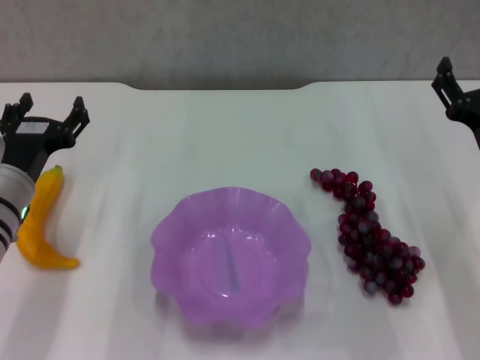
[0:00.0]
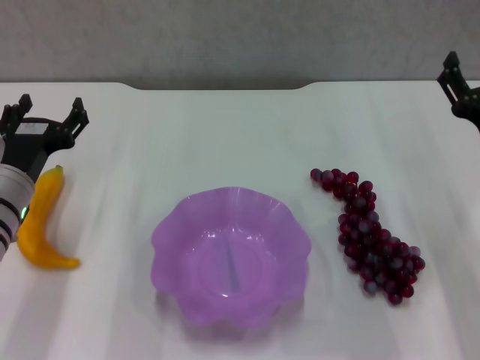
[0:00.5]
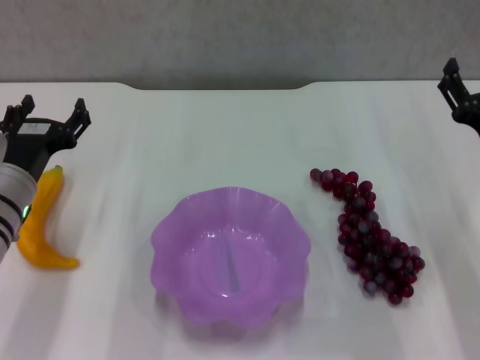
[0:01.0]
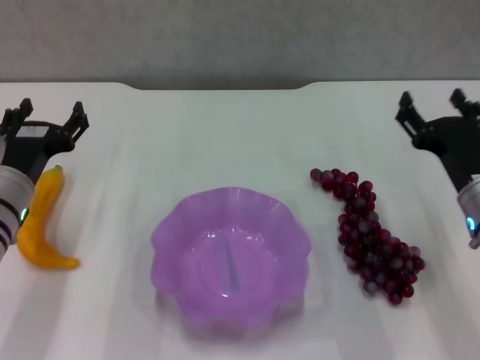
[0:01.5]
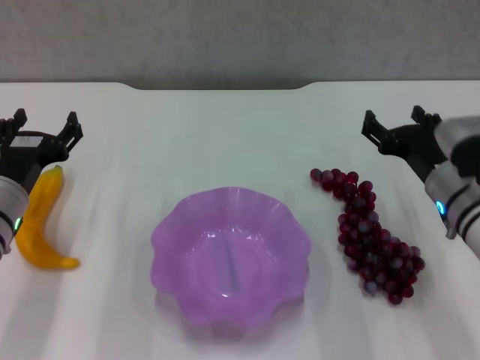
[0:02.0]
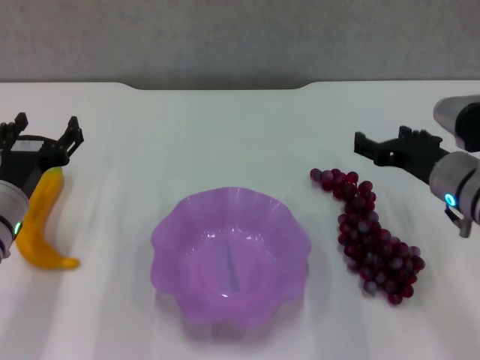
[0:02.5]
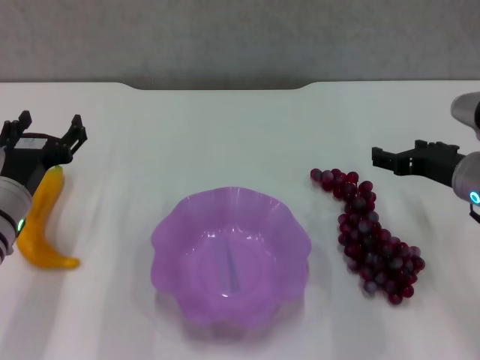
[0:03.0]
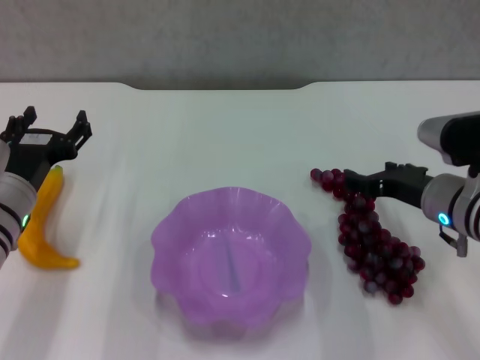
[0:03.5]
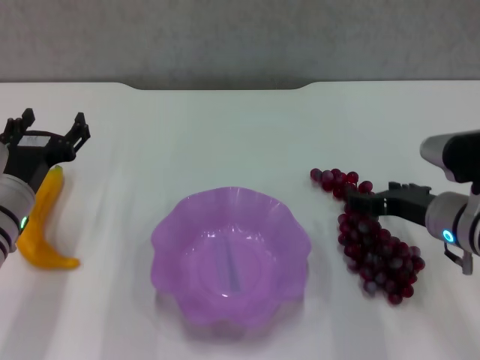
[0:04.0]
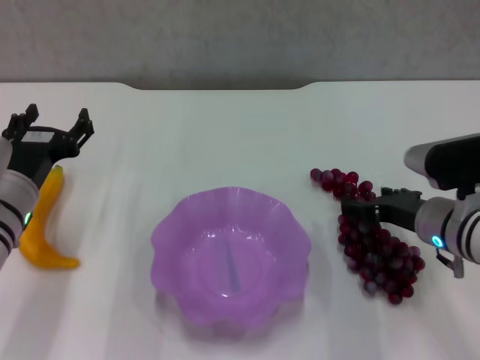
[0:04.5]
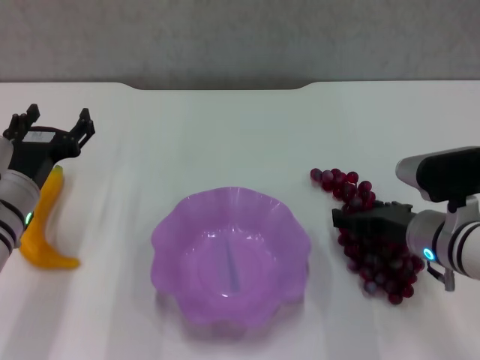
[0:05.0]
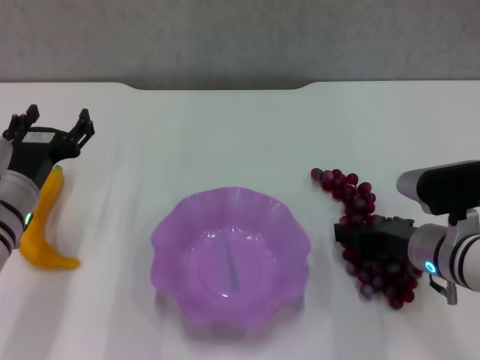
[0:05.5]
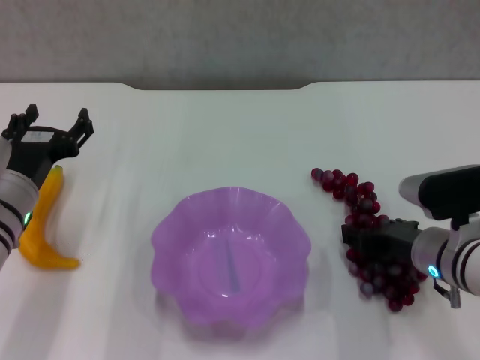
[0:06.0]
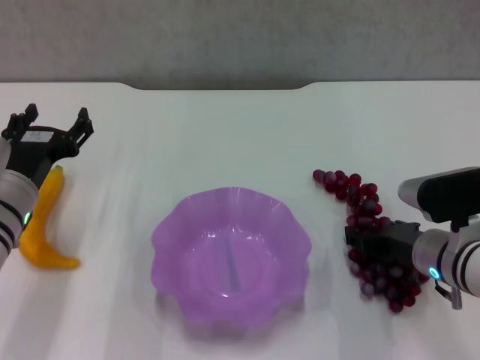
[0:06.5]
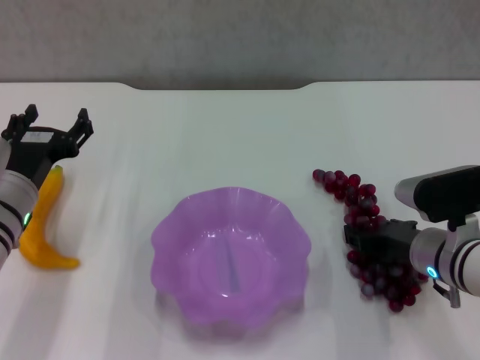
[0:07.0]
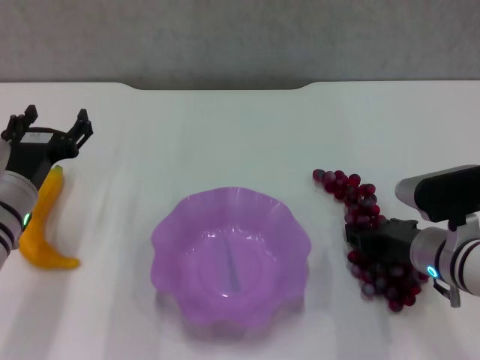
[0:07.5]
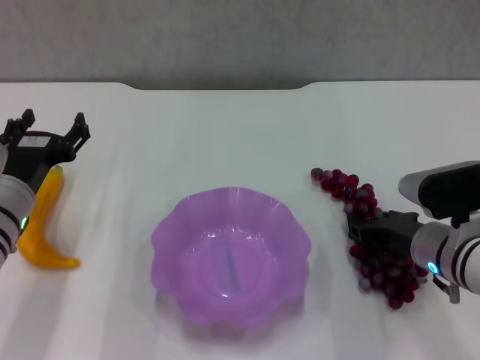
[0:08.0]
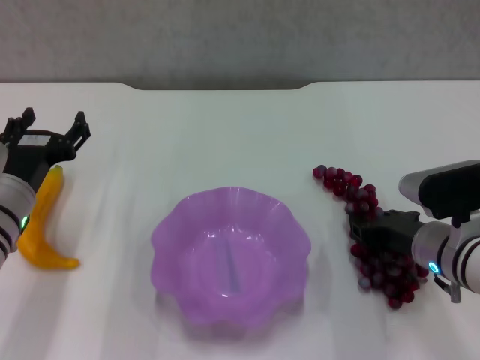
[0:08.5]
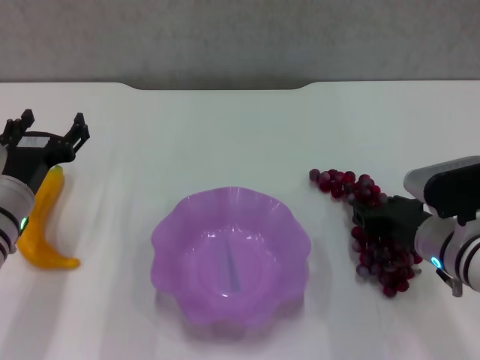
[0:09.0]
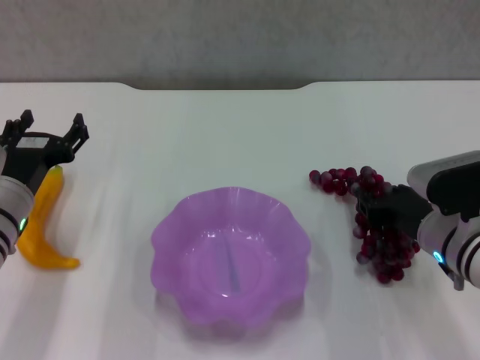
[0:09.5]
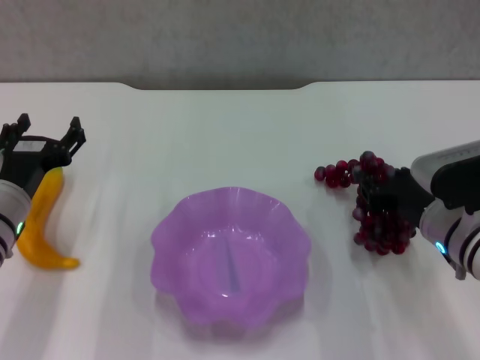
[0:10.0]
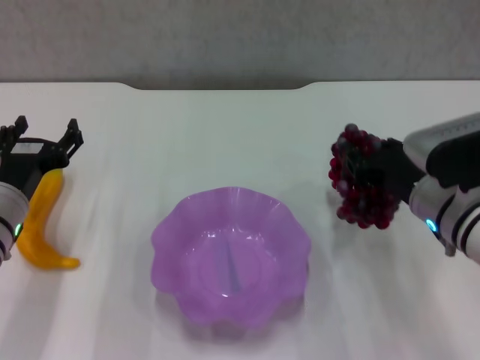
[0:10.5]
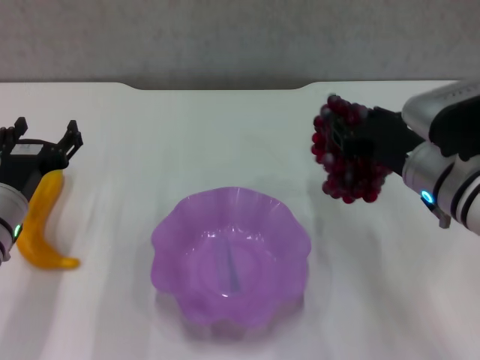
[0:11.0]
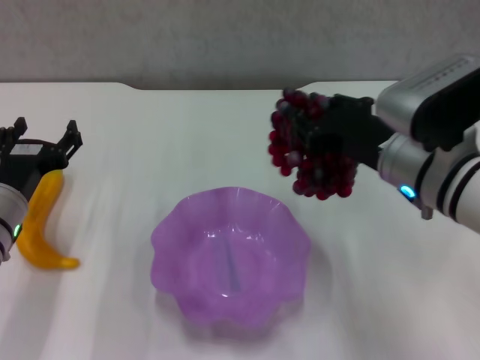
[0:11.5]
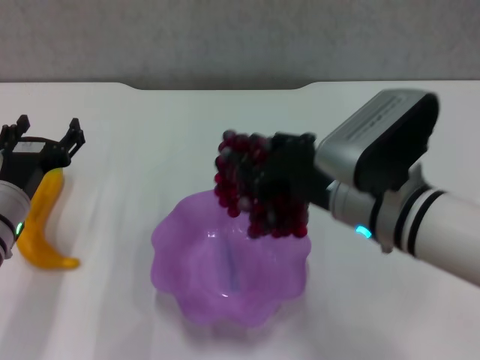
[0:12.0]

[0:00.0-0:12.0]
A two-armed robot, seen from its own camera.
Step, 0:00.0 to 0:08.0: Grasp the grape with right gripper.
0:04.0 to 0:06.0: The grippers make only small movements.
0:06.0 to 0:08.0: The right gripper closes up.
0:08.0 to 0:10.0: The grippers move only a little.
0:10.0 to 0:12.0: The right gripper is displaced to the left and upward by about 15 cm.

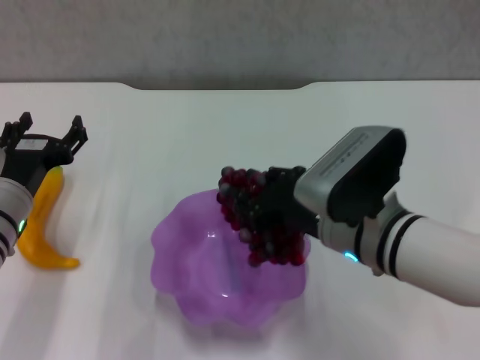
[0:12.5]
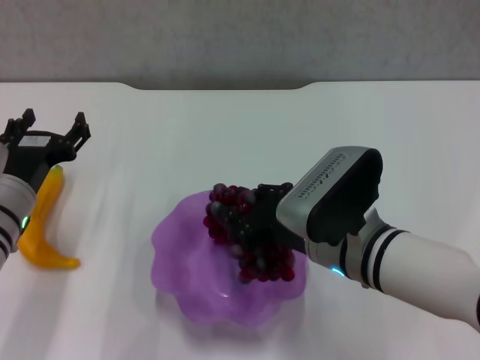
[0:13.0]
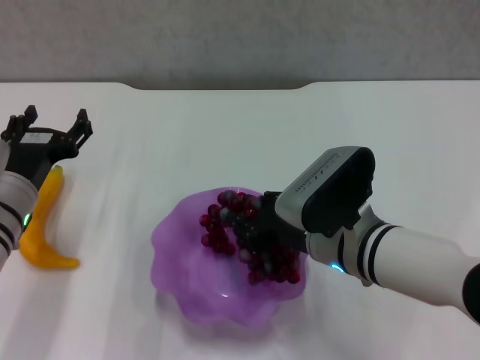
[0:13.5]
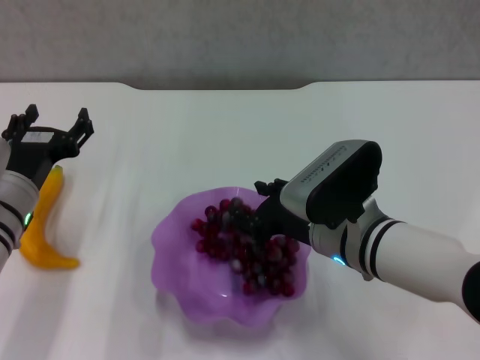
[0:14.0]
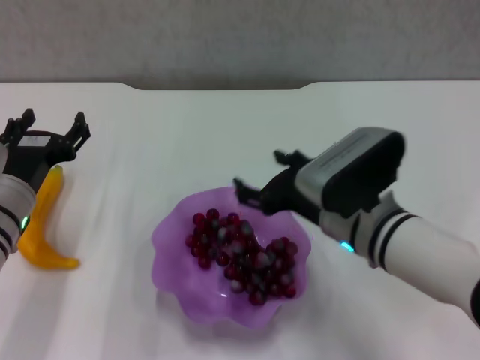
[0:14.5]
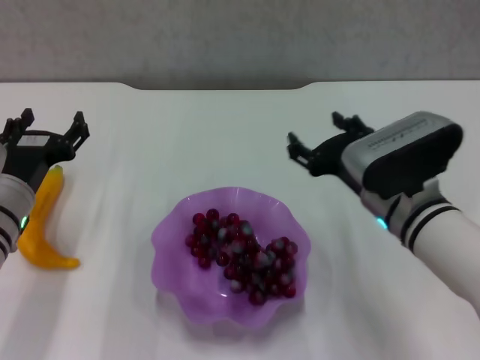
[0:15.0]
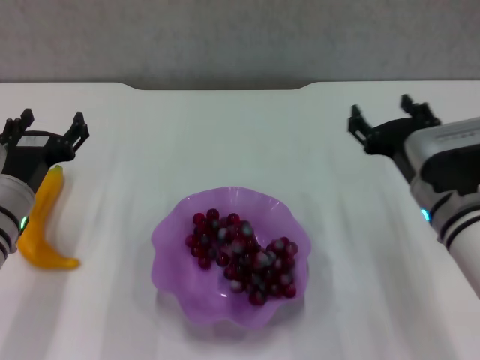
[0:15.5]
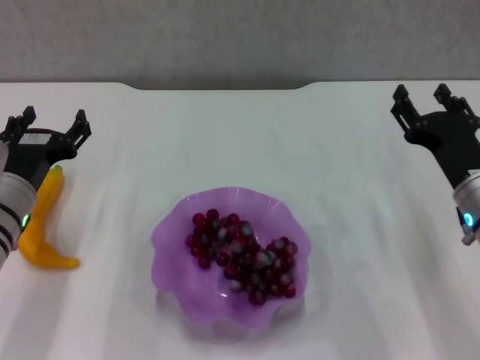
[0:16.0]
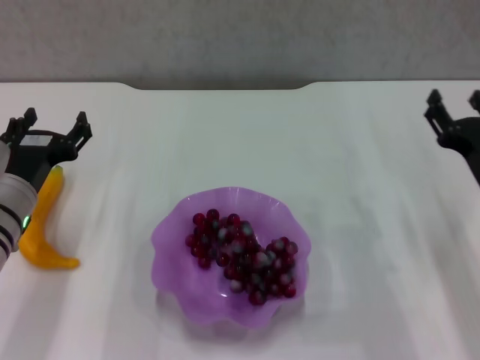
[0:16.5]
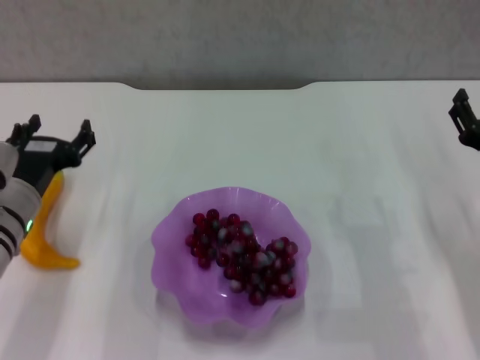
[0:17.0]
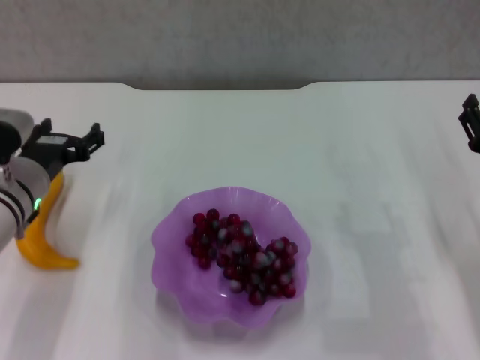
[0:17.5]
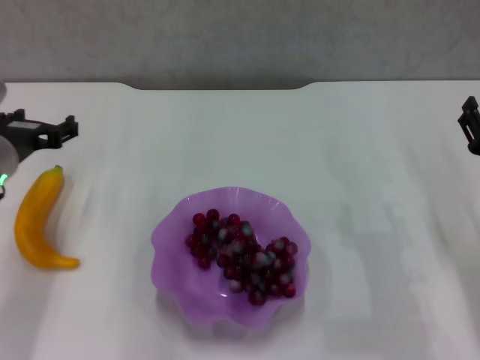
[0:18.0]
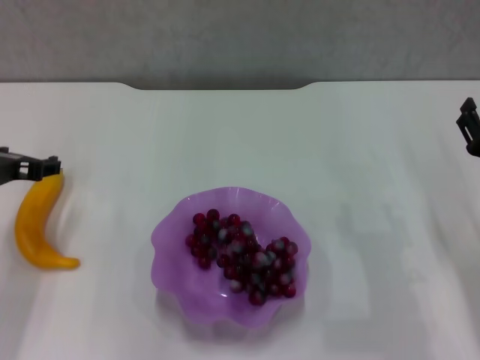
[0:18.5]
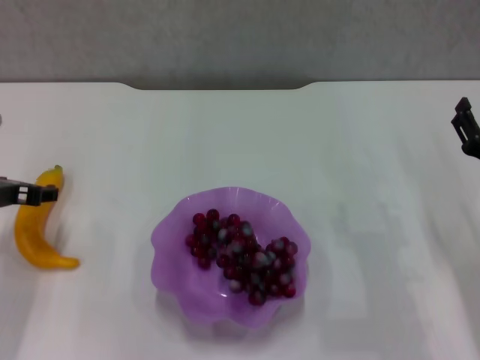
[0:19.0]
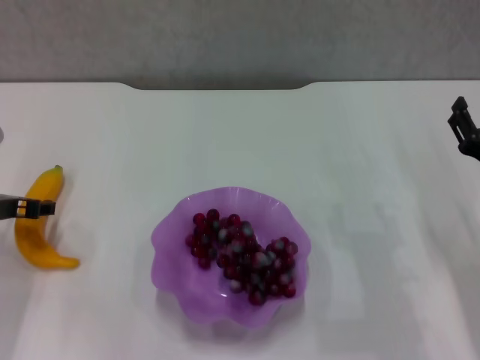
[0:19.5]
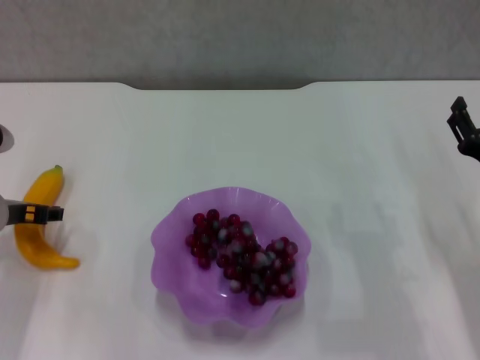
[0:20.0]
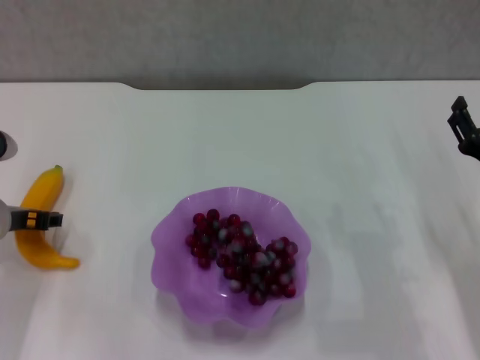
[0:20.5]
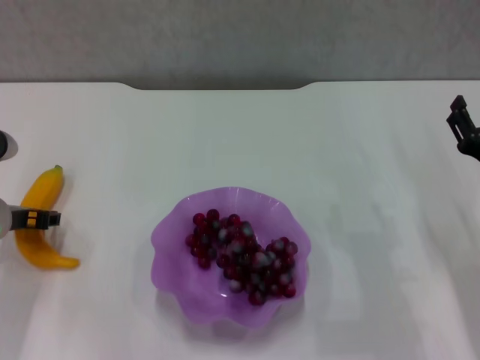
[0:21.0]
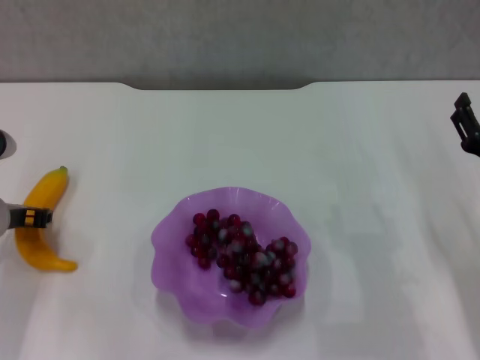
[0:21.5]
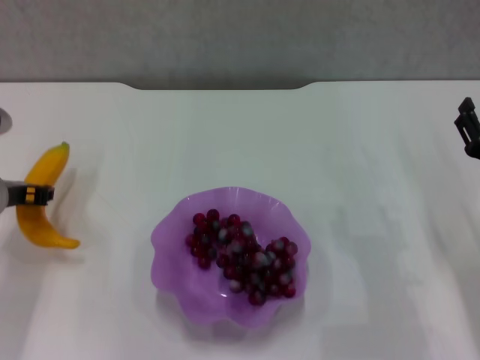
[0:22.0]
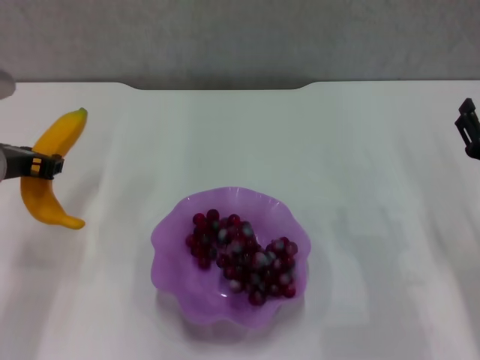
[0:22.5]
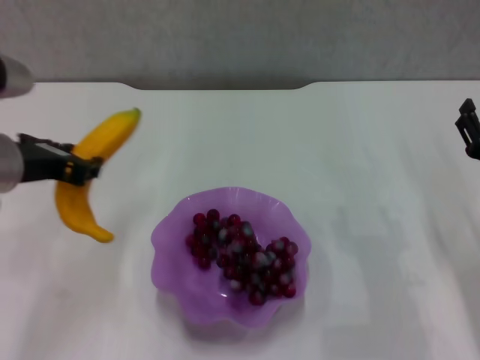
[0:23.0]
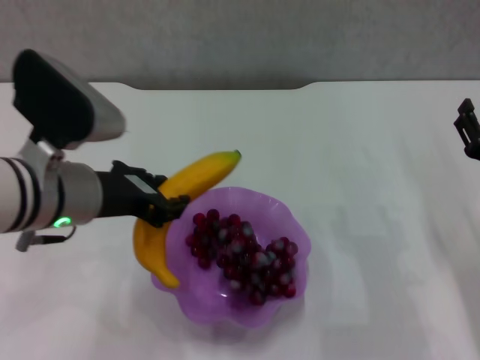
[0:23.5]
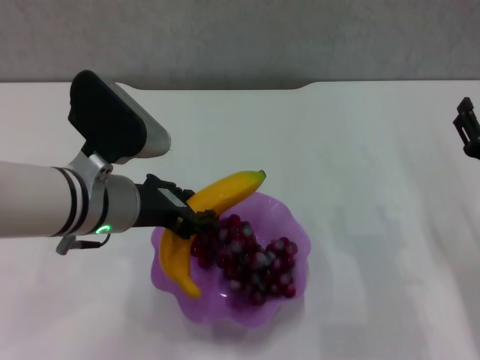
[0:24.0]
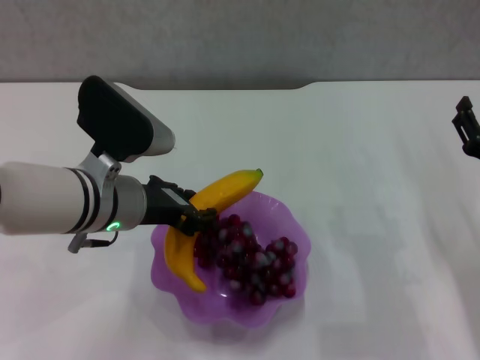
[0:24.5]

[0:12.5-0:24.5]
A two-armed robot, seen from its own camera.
Step, 0:14.5 to 0:21.0: Grasp the banana with left gripper.
0:12.5 to 0:14.5: The right gripper opens.
0:14.5 to 0:16.5: The right gripper is displaced to the right by roughly 15 cm.
0:16.5 to 0:18.5: The left gripper travels upward by some 5 cm.
0:18.5 to 0:20.5: The left gripper travels downward by about 5 cm.
0:20.5 to 0:22.5: The left gripper goes about 10 cm upward, and closes its fingers.
0:22.5 to 0:24.5: The left gripper travels to the right by some 10 cm.

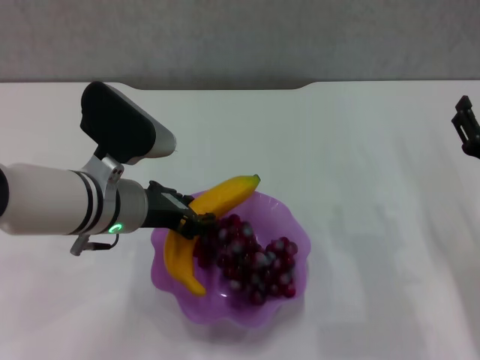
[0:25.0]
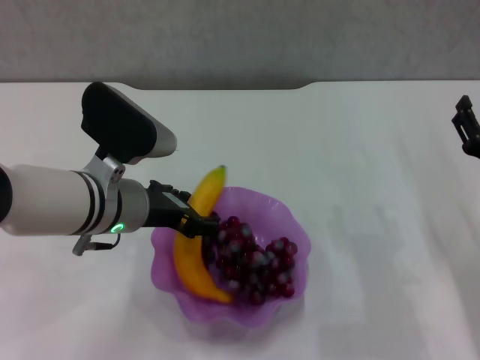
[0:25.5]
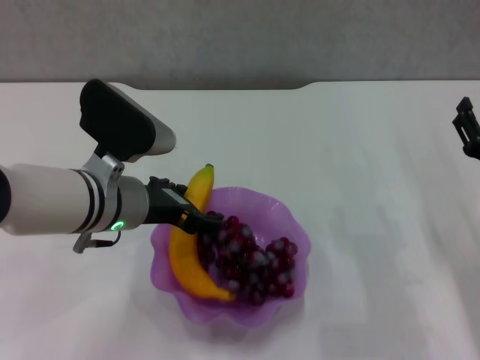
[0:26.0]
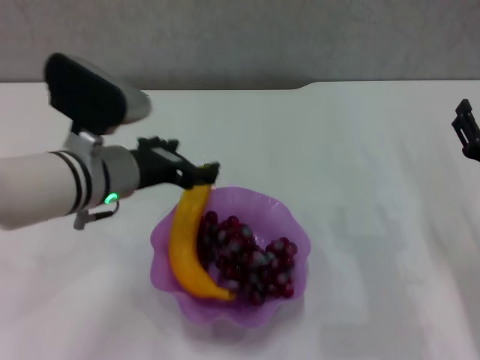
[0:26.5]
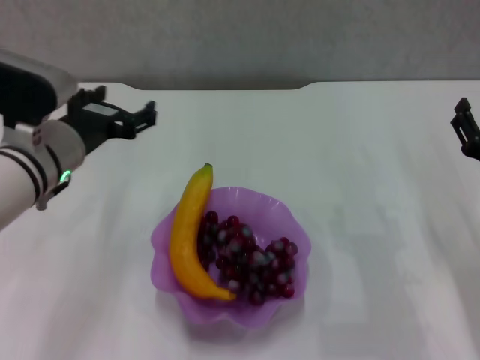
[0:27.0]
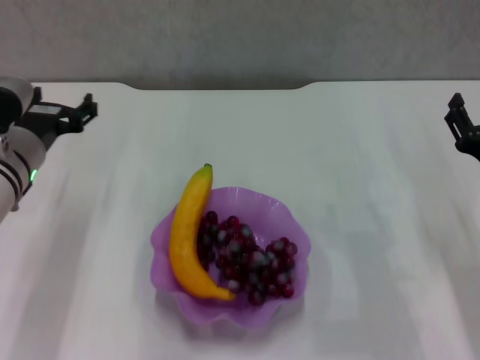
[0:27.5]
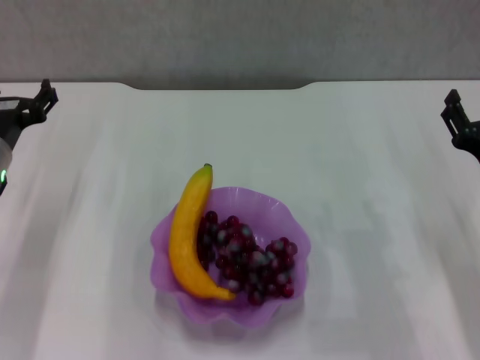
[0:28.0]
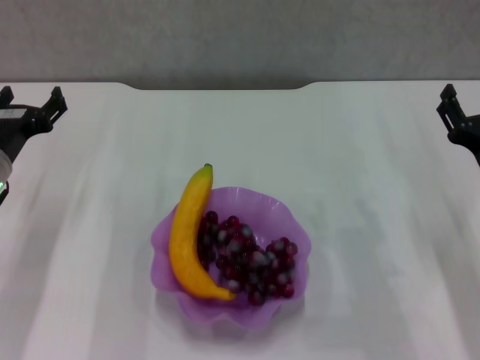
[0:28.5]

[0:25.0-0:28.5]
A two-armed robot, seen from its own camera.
0:25.0 to 0:27.0: The left gripper moves to the left, some 5 cm, and opens up.
0:27.0 to 0:28.5: The left gripper heads to the left and downward, covering roughly 10 cm.
